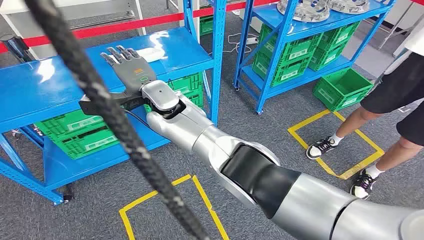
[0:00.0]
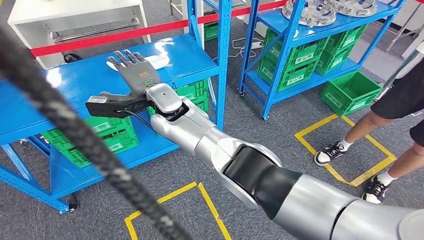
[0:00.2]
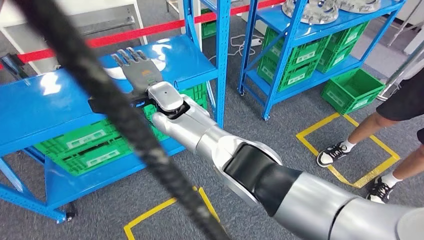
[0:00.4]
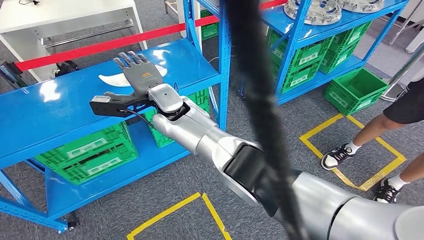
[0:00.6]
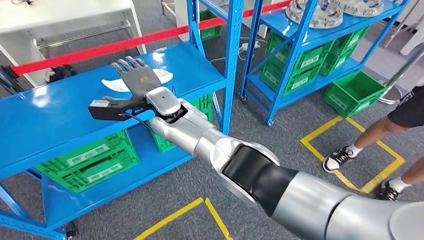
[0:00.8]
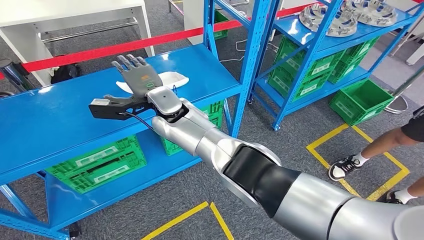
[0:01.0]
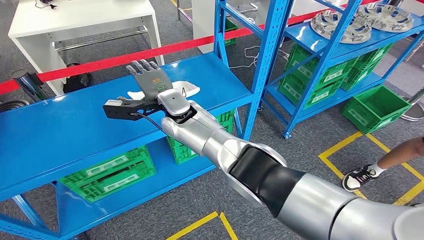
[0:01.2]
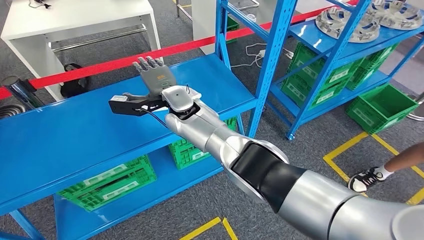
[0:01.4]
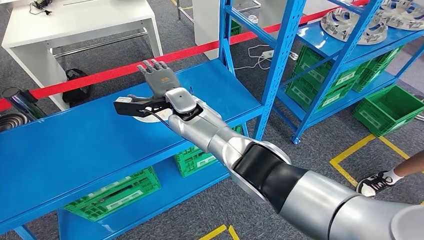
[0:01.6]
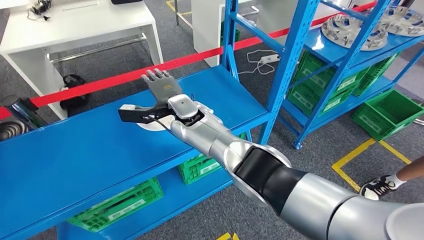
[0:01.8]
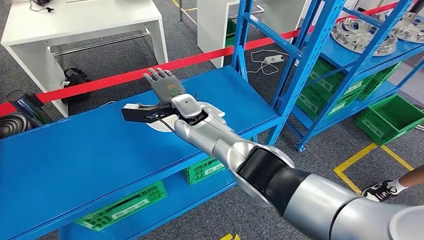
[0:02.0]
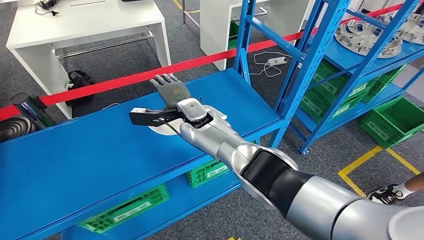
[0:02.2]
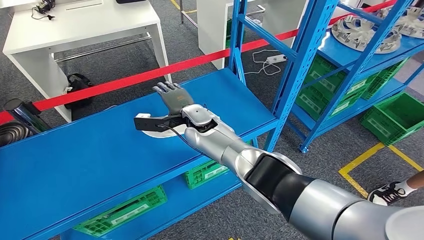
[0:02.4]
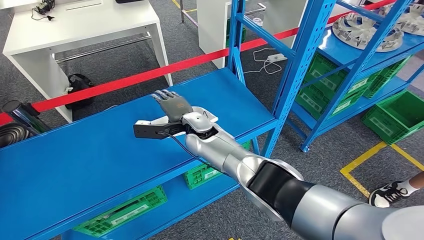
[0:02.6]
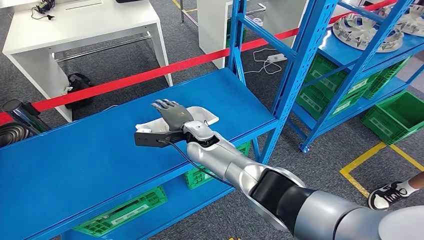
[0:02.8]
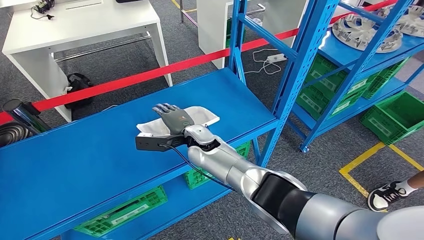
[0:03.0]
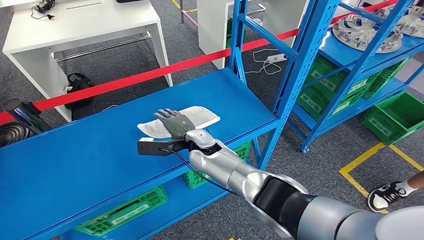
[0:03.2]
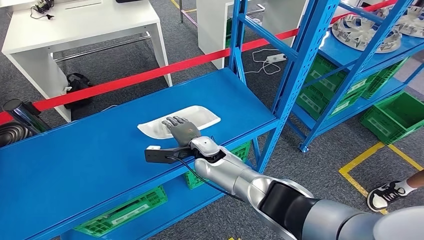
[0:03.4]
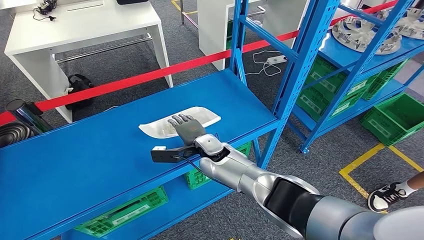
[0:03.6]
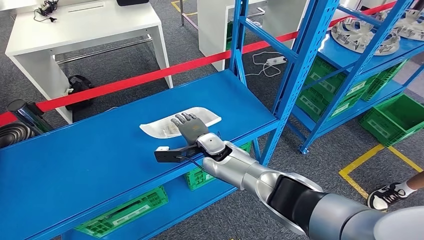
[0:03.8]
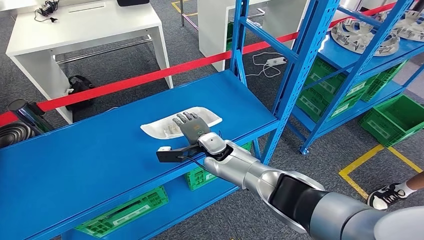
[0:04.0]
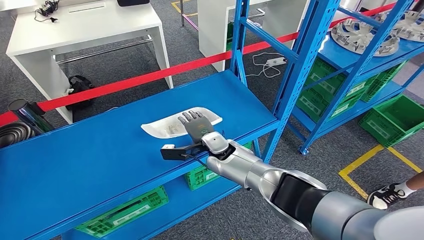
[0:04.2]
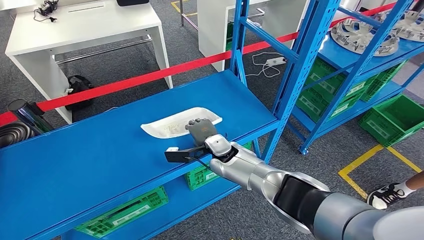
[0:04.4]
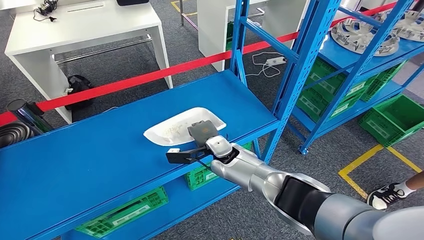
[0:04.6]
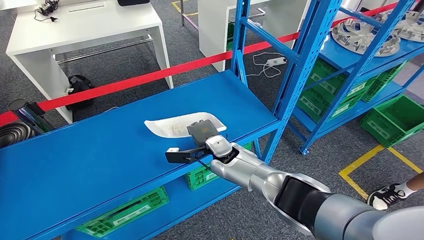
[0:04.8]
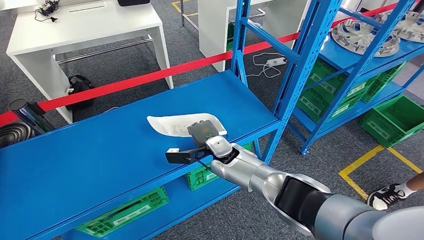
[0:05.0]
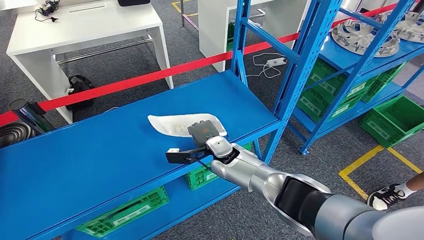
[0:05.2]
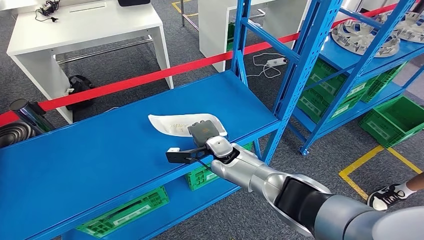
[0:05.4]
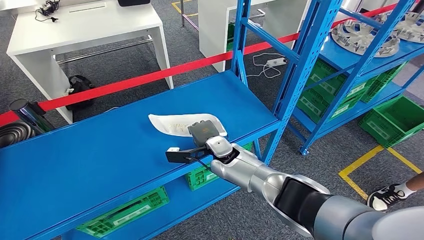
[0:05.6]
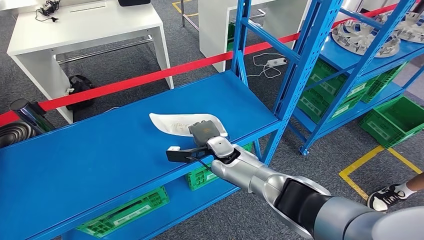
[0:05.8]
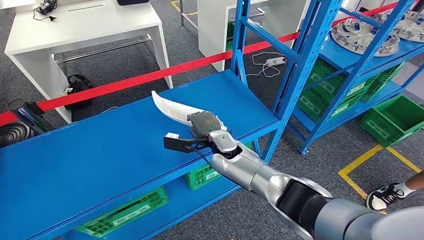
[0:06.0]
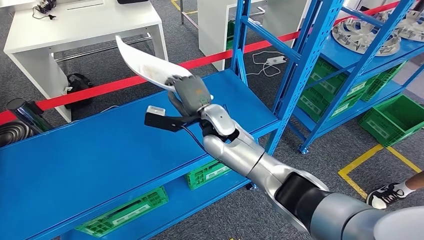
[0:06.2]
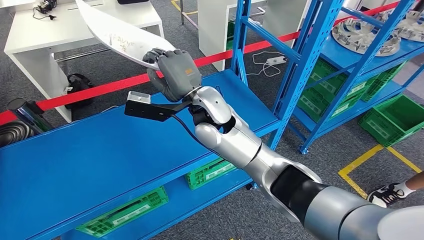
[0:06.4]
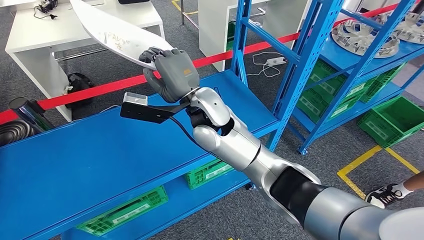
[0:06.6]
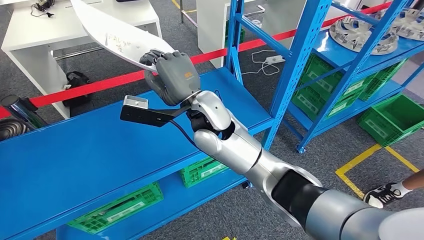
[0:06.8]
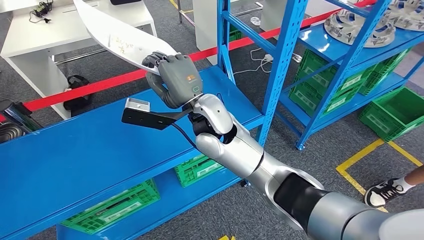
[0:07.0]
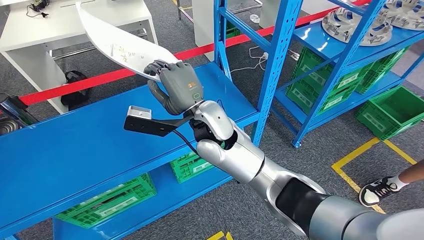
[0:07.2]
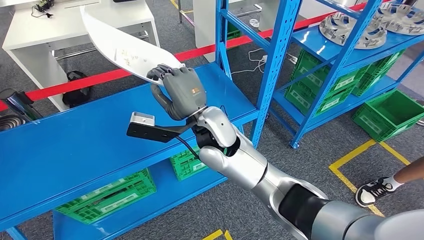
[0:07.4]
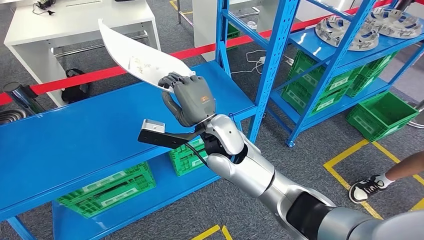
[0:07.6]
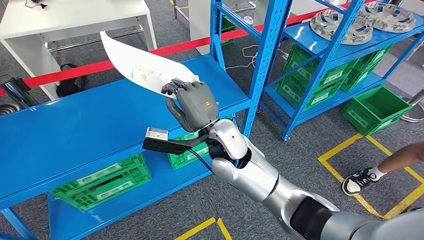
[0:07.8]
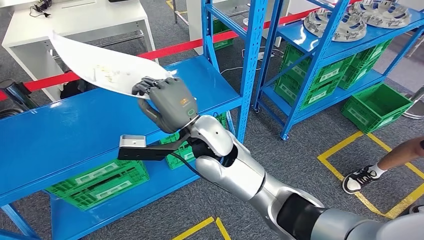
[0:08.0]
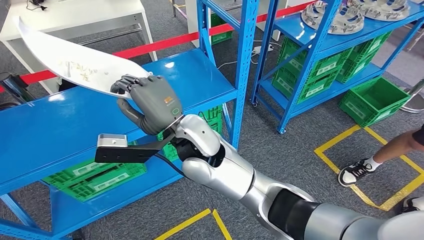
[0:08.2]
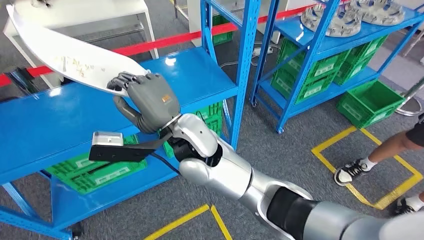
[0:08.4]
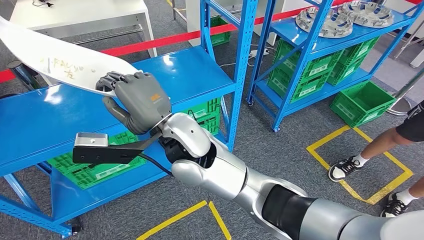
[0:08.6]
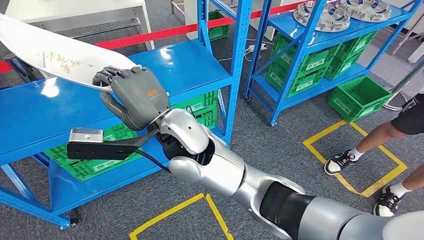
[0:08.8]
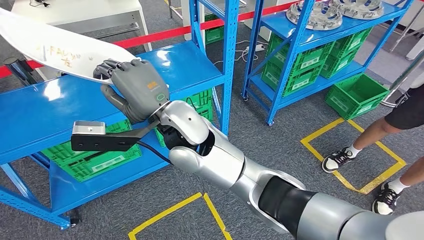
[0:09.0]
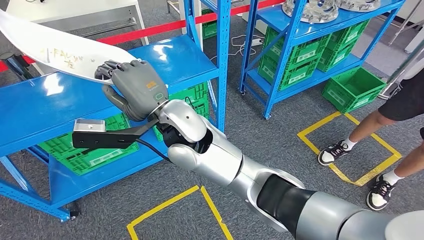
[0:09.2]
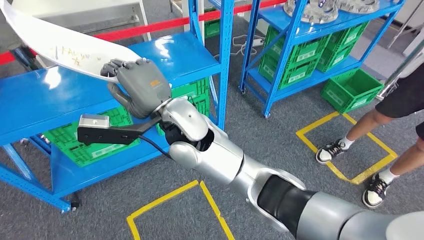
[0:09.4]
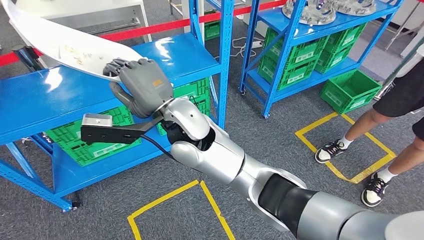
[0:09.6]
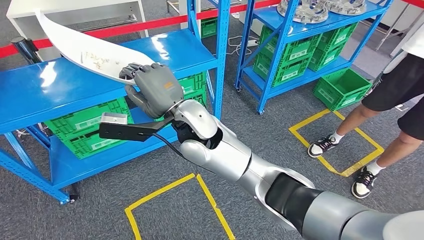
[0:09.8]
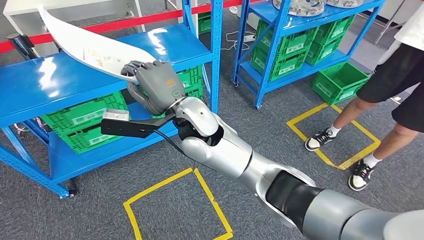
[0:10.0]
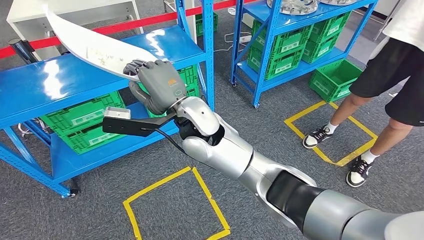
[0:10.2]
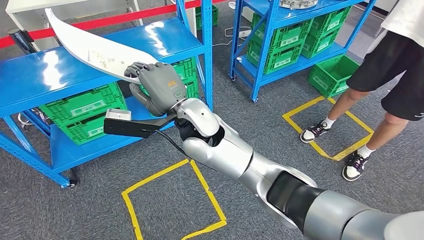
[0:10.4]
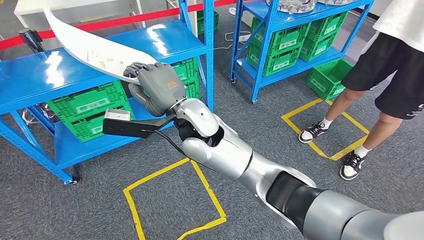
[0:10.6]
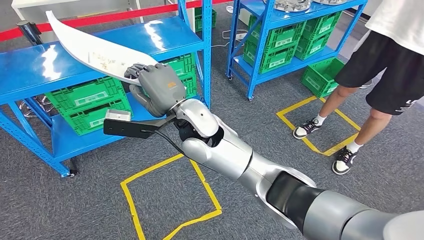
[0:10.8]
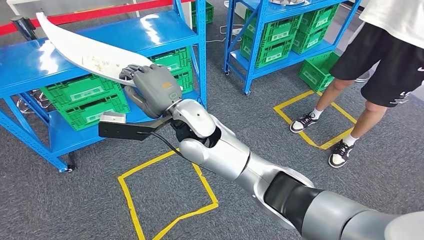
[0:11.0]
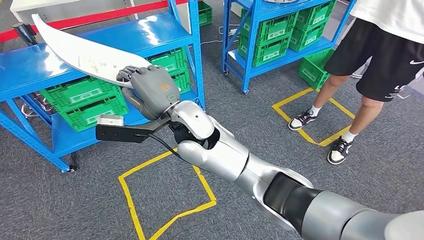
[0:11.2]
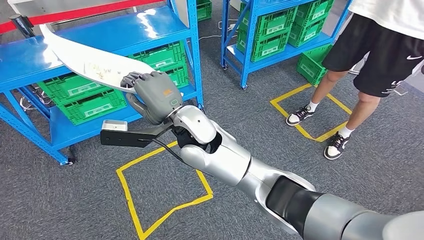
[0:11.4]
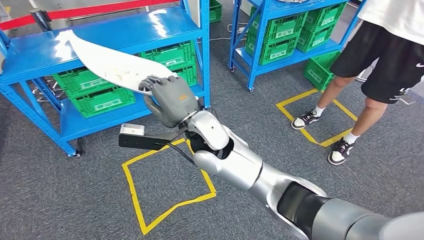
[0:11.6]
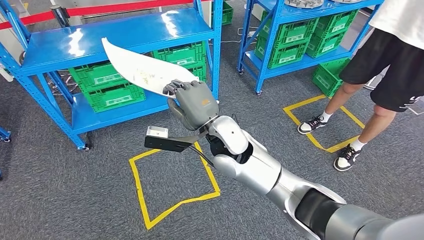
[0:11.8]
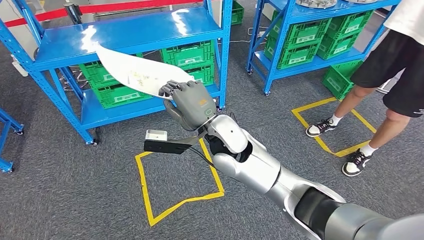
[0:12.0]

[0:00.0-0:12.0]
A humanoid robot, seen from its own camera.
Step, 0:00.0 to 0:07.2: Pick up the small component from the shelf.
0:04.4 to 0:06.0: The hands move only a little.

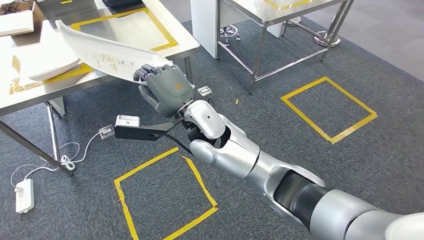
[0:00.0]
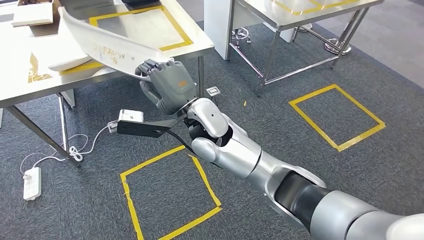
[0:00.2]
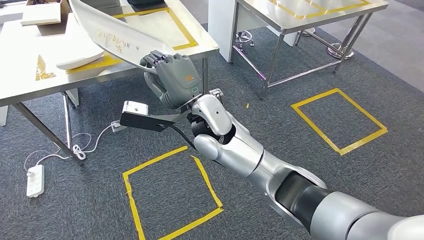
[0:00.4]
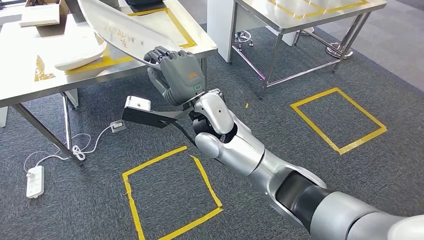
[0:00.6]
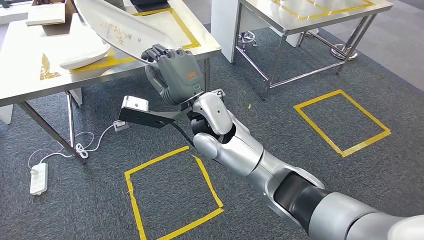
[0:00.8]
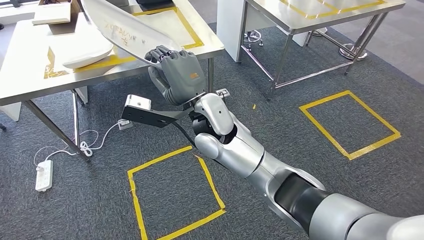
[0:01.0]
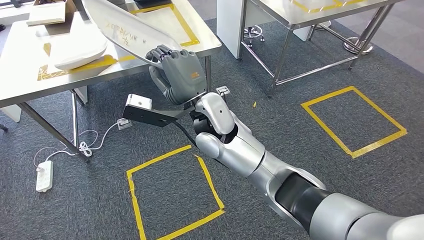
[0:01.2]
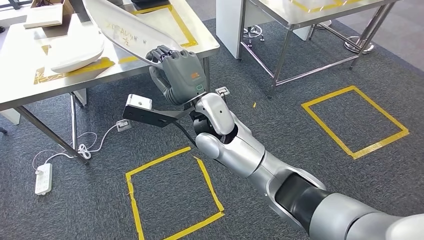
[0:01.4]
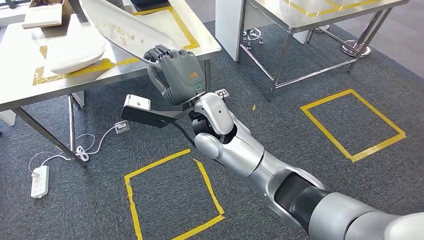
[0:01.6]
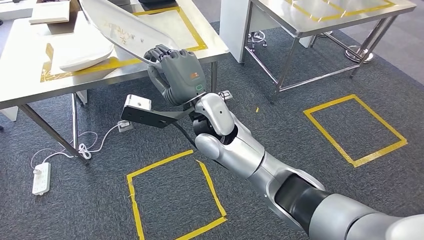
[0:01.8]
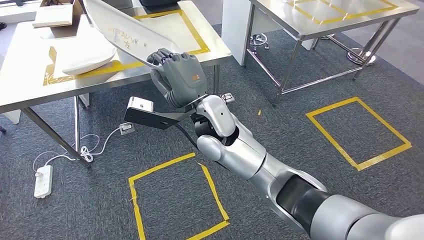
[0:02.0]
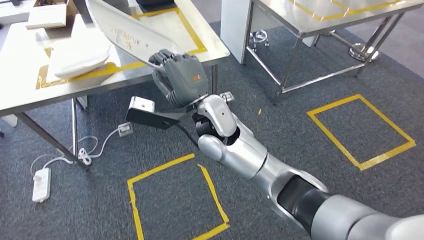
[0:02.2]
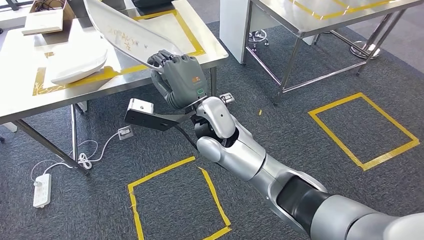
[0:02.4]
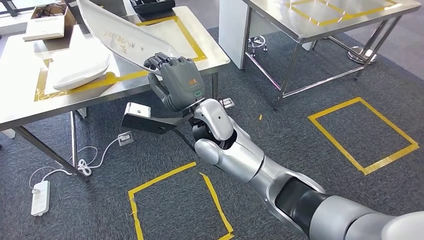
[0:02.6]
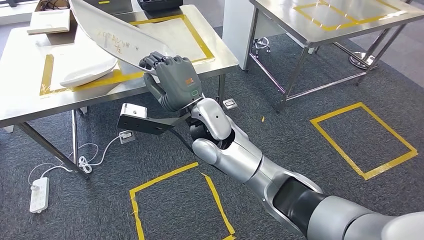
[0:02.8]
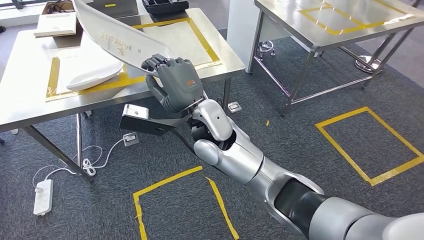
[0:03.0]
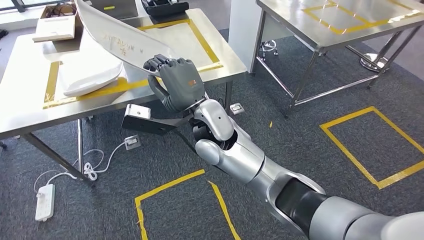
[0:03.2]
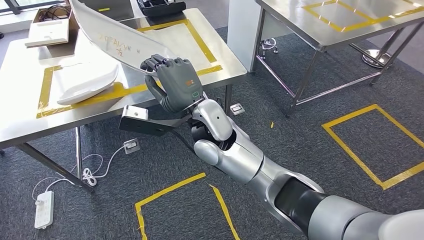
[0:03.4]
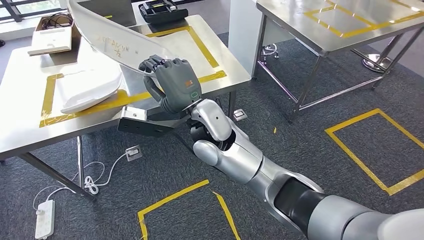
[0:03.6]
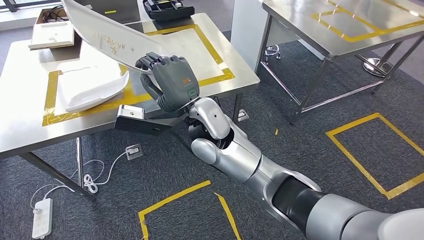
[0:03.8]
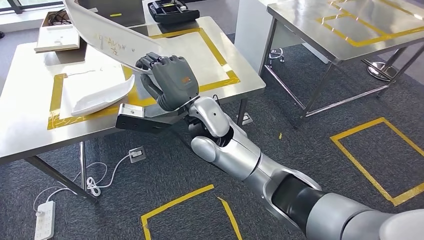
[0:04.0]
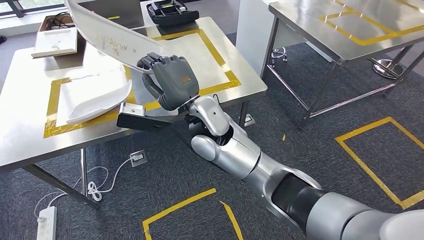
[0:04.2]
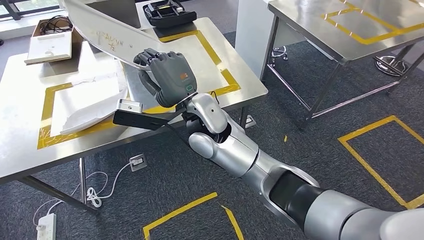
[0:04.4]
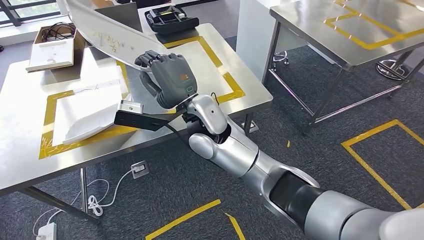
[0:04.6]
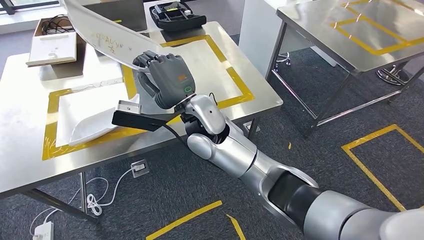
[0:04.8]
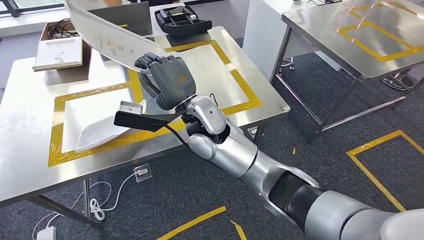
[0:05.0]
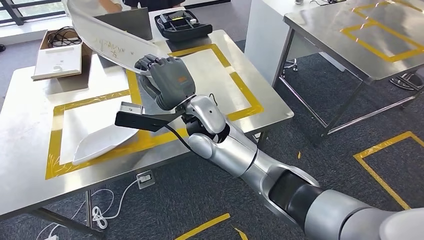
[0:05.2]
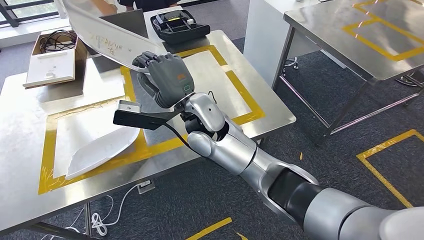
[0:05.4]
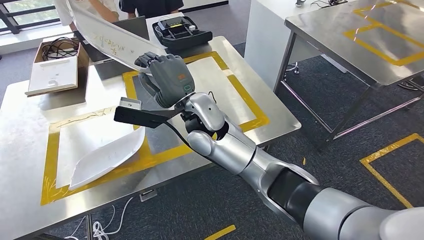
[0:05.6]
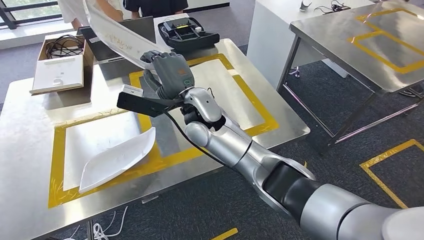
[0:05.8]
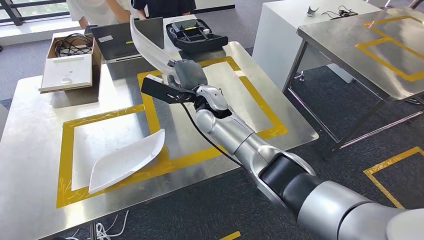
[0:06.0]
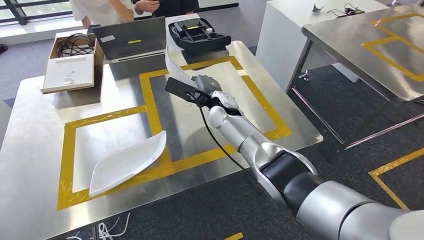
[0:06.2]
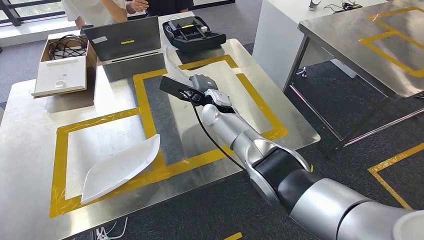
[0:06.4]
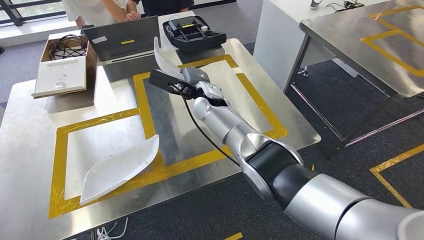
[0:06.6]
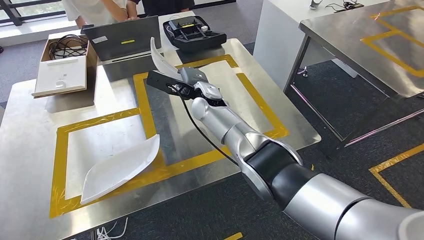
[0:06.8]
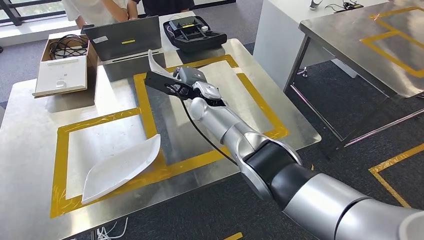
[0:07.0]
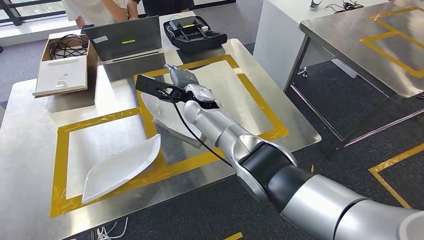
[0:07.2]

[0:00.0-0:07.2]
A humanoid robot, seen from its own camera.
Step, 0:00.0 to 0:05.4: Move the small component to the workbench.
